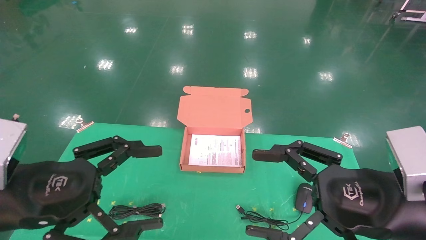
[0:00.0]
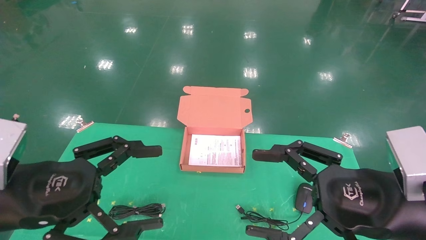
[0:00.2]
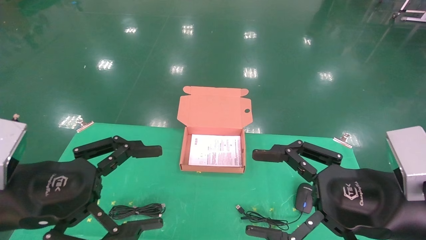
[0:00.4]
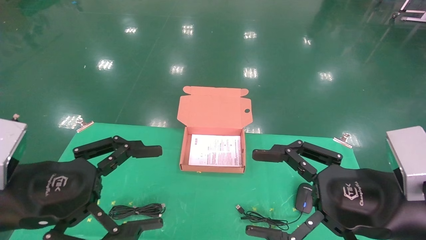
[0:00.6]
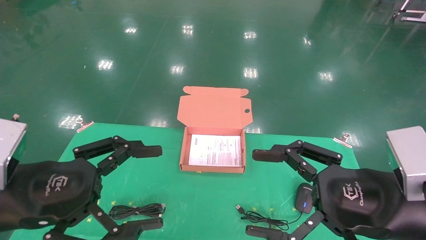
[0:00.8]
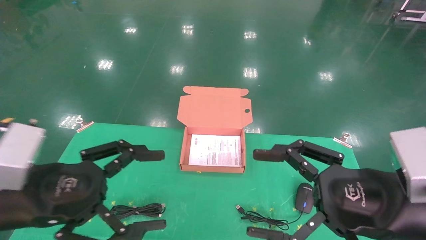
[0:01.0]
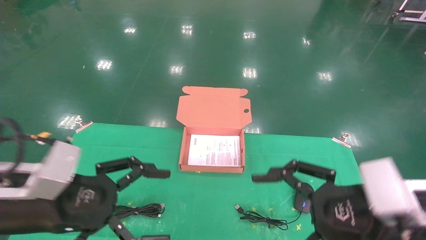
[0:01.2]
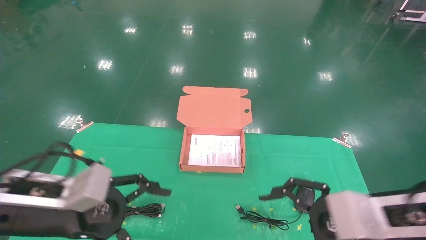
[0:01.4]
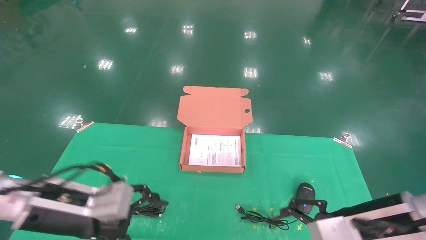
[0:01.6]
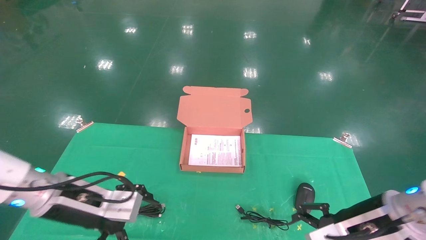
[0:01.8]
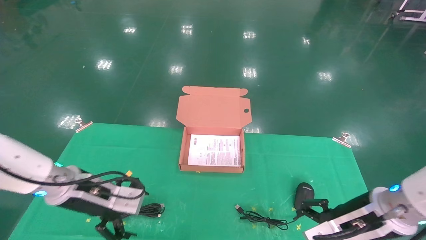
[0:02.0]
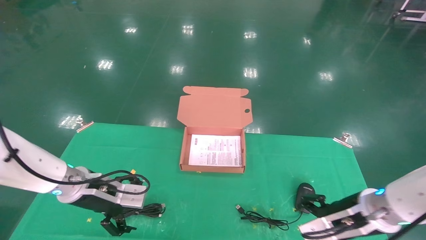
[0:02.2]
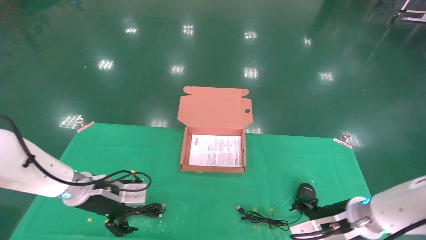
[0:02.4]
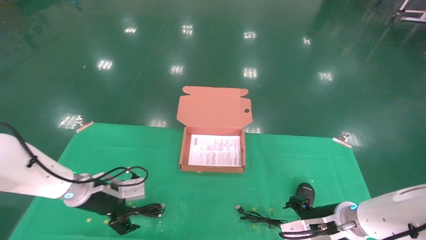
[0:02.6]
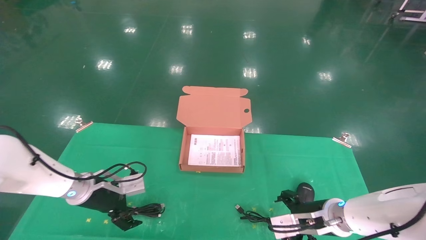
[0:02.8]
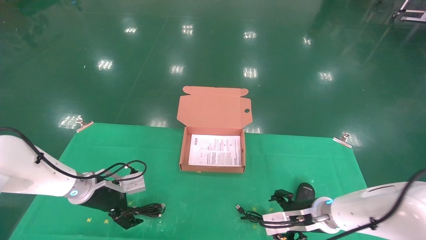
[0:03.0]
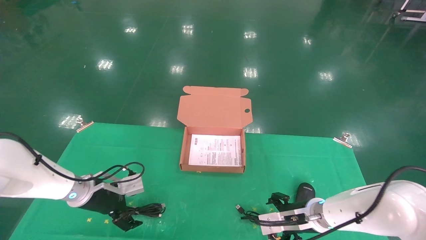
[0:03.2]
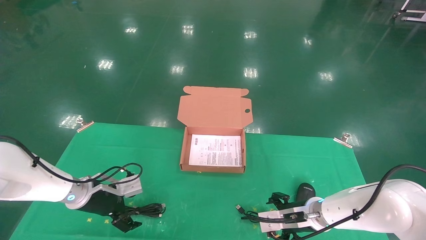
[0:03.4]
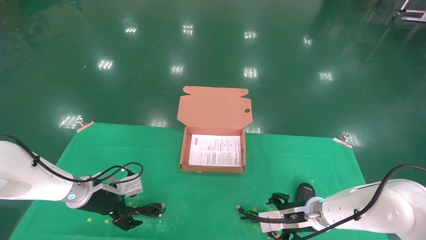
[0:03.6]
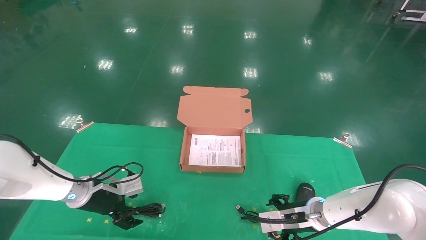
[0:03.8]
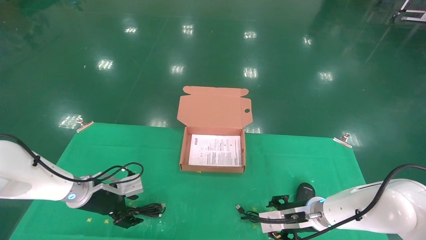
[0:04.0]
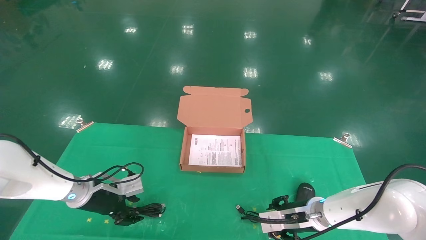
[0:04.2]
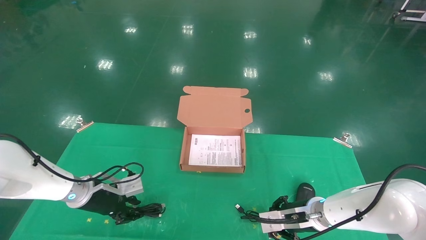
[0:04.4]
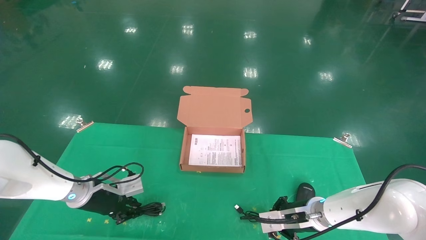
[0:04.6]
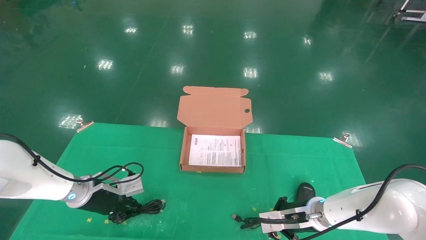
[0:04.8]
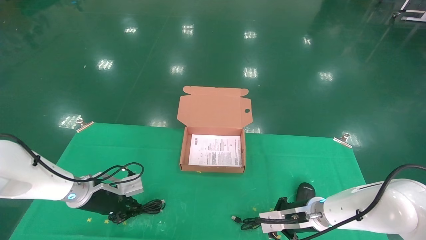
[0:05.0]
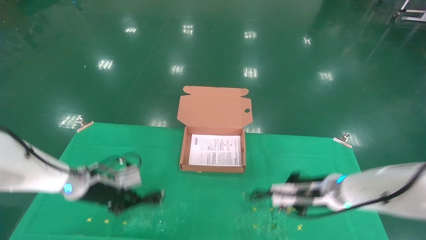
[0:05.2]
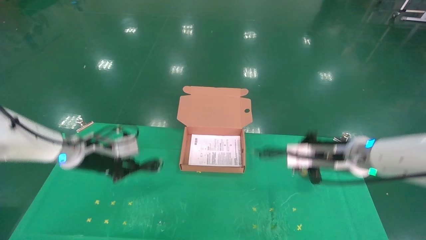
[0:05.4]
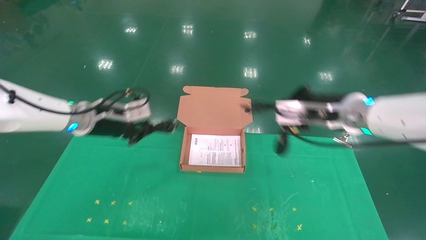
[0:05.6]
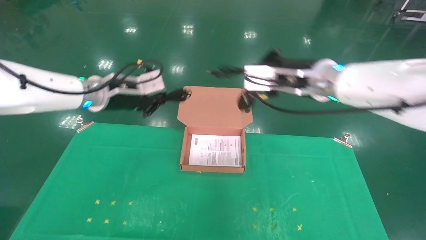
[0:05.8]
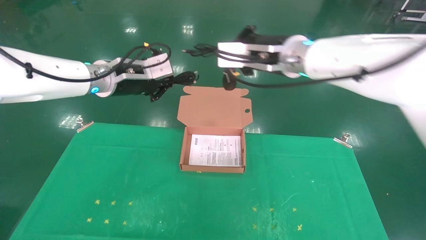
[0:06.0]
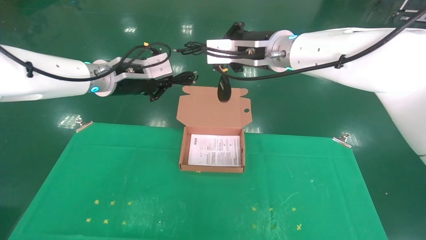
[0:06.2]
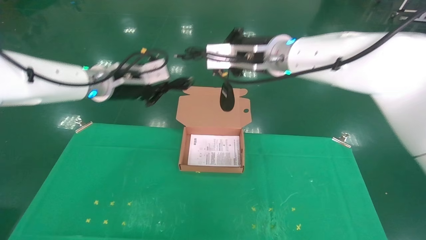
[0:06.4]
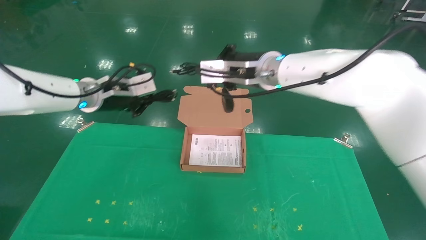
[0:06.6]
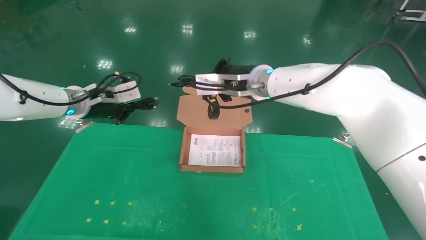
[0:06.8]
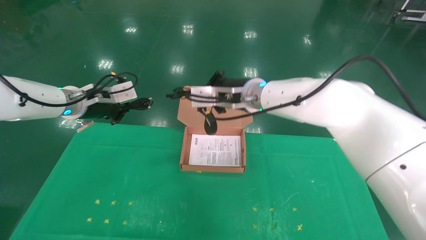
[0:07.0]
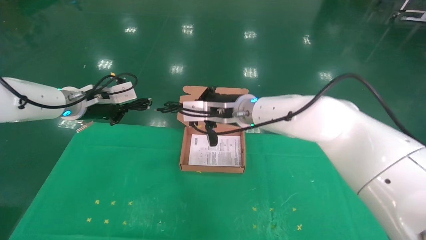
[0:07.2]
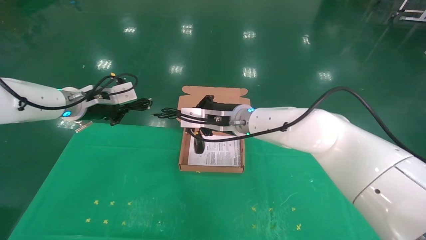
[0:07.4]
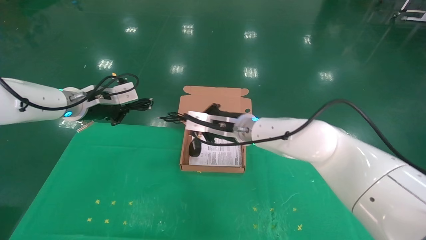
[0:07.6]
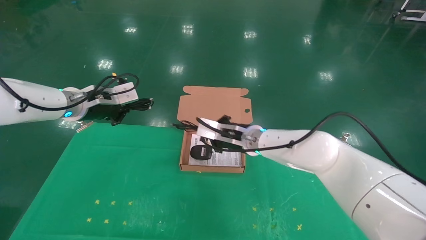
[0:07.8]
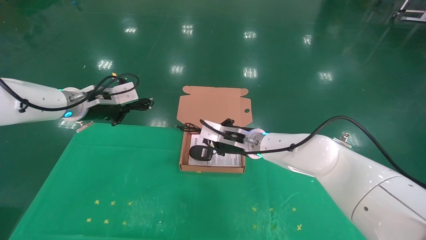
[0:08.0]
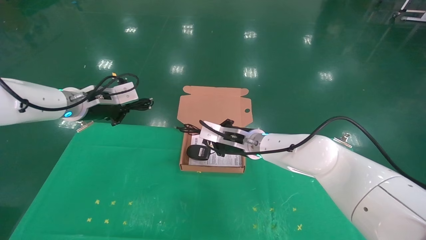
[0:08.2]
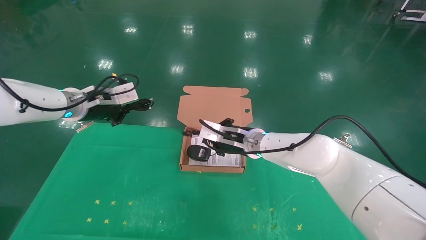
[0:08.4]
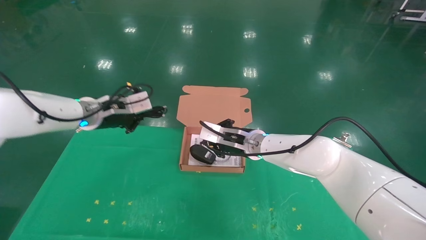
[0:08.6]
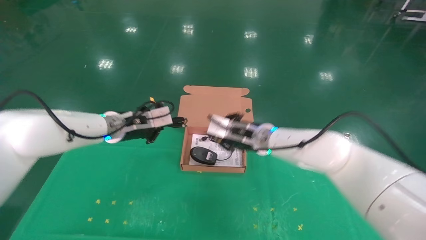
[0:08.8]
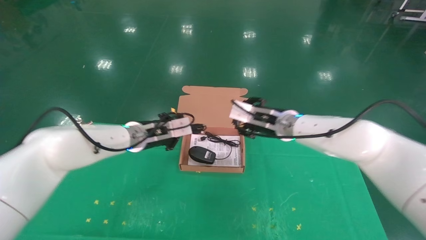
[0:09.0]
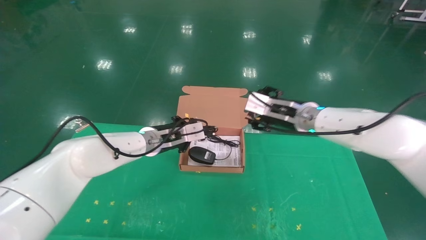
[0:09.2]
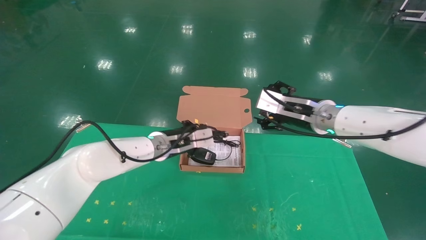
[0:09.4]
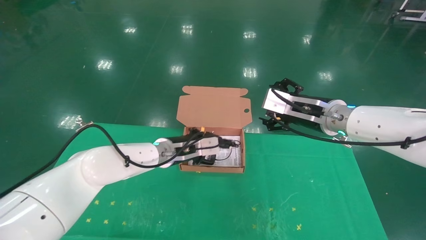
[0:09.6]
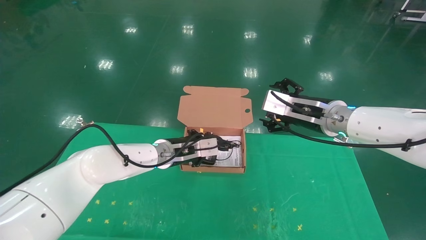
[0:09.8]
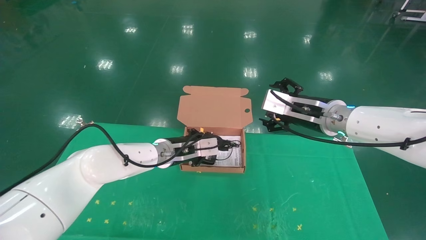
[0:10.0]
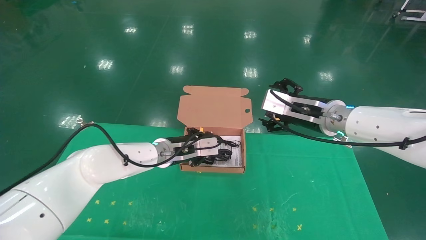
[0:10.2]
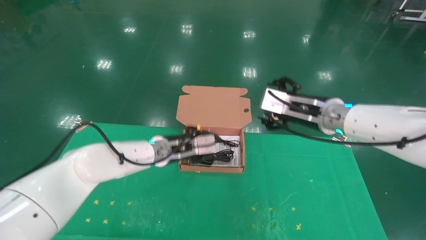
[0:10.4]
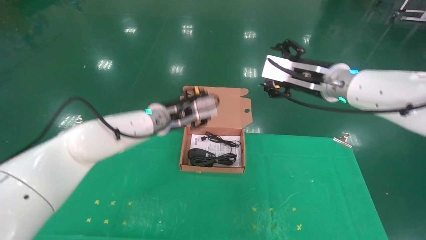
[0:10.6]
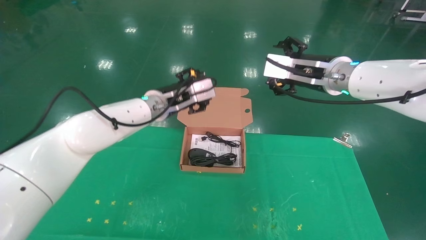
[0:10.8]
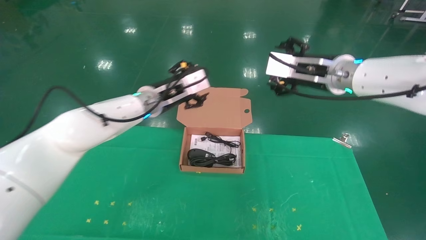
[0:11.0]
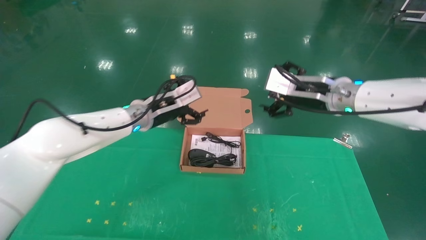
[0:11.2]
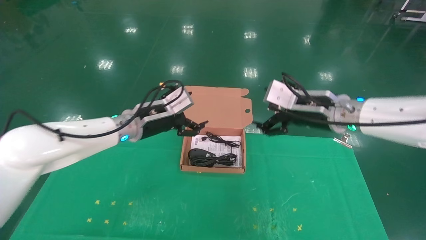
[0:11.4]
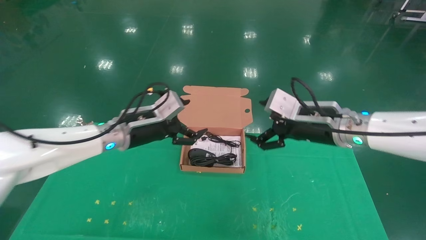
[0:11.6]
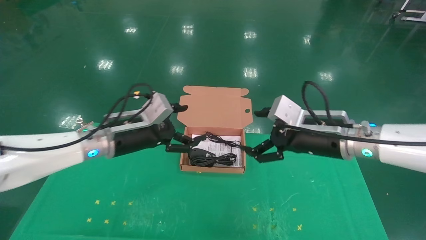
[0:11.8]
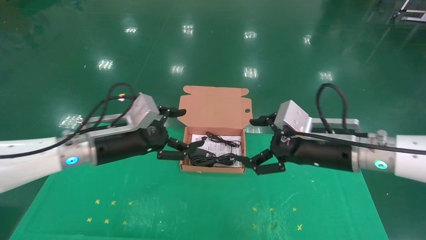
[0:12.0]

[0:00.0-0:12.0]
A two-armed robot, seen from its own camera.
Task of the whole recording: grasp data cable left put into box grasp mouse right put into box.
Step, 0:01.2 to 0:05.6: Grab and pick up both the mouse and power cord from the accessory packaging area at the same time.
Step, 0:05.8 to 0:10.8: Place the mouse and power cord into the box.
0:00.0 to 0:01.6: The grippers both shift forward and downward by some 10 cm.
0:01.6 to 0:03.0: Both grippers travel together forward and downward, about 15 cm.
0:03.0 to 0:04.4: The left gripper closes its fingers; the right gripper closes.
0:04.4 to 0:06.0: Both grippers move upward, about 30 cm. The right gripper closes, while the left gripper closes its fingers.
0:06.0 to 0:07.6: The left gripper shifts about 5 cm to the left, while the right gripper moves downward and to the left, about 15 cm.
0:07.6 to 0:09.0: The left gripper moves to the right and downward, about 15 cm, while the right gripper is displaced to the right by approximately 10 cm, and opens its fingers.
0:09.0 to 0:10.4: The right gripper changes place by about 10 cm, and opens up.
0:10.4 to 0:12.0: The right gripper travels backward and downward by approximately 10 cm. The left gripper heads to the left and backward, covering approximately 15 cm, and opens.
